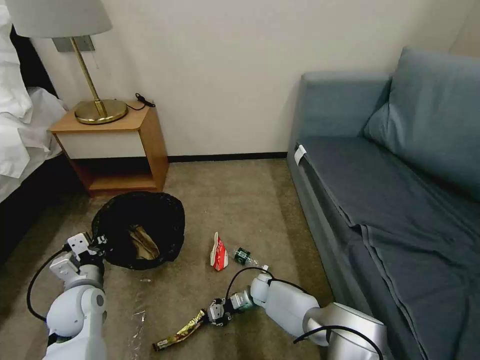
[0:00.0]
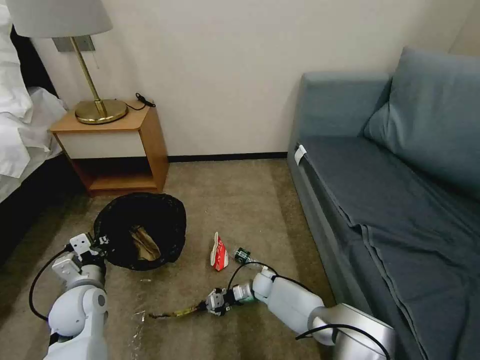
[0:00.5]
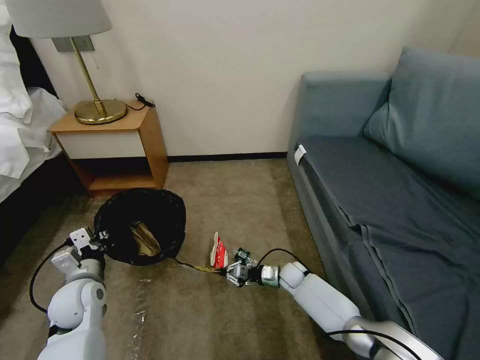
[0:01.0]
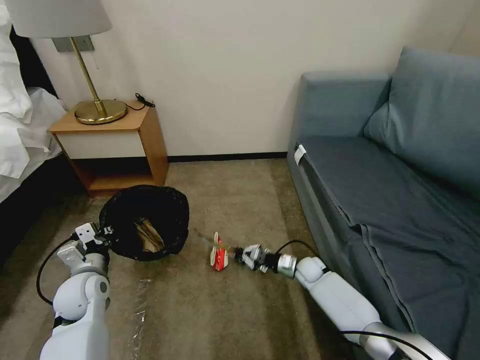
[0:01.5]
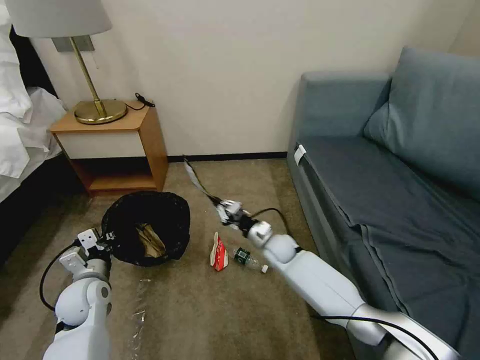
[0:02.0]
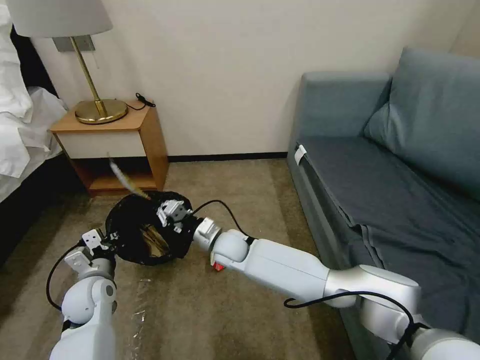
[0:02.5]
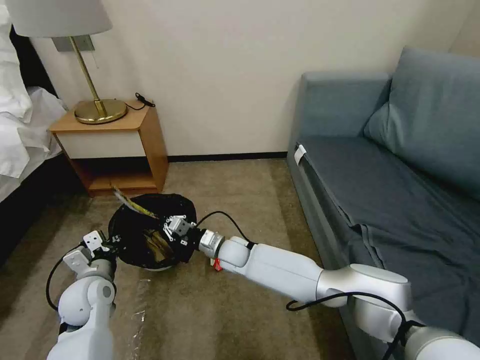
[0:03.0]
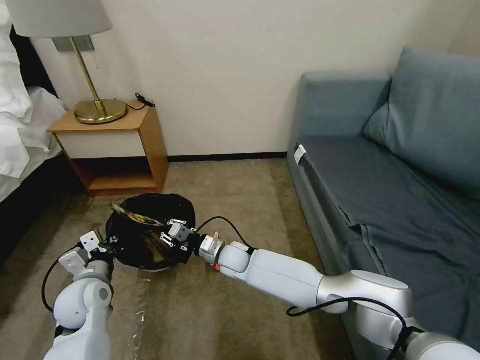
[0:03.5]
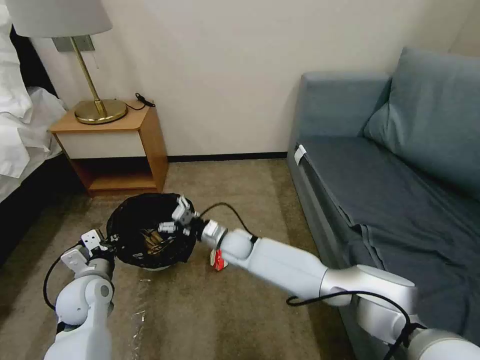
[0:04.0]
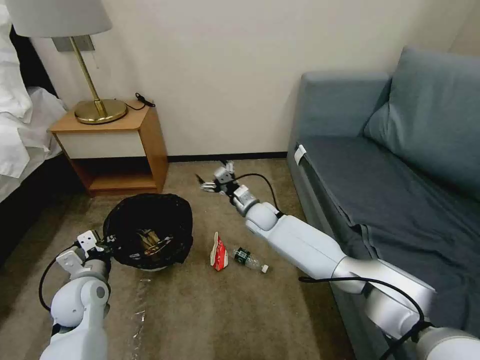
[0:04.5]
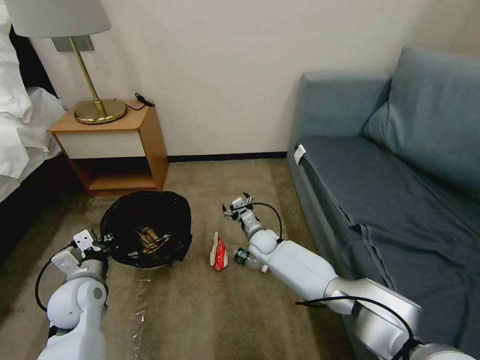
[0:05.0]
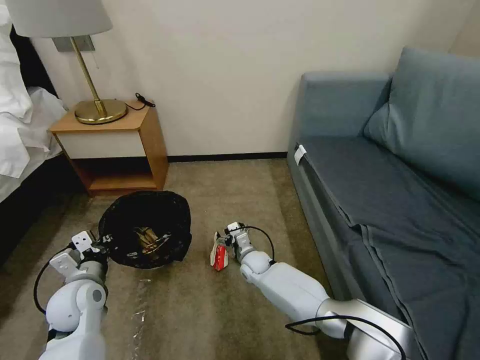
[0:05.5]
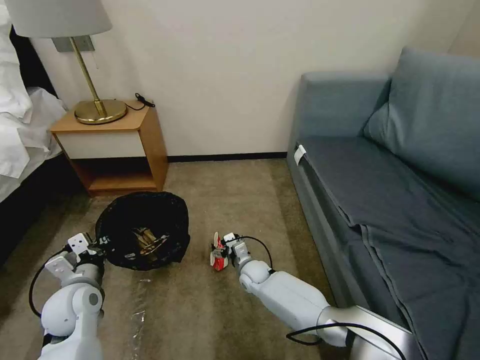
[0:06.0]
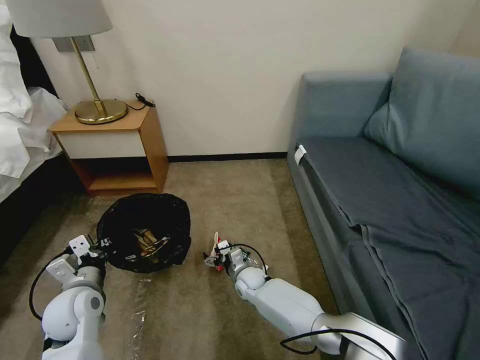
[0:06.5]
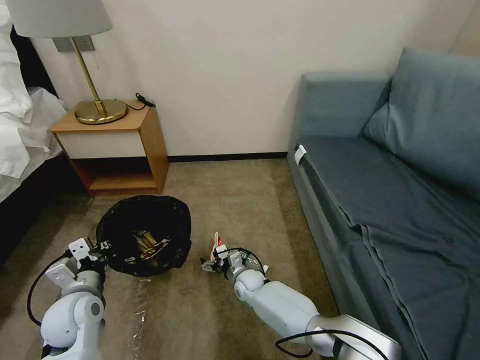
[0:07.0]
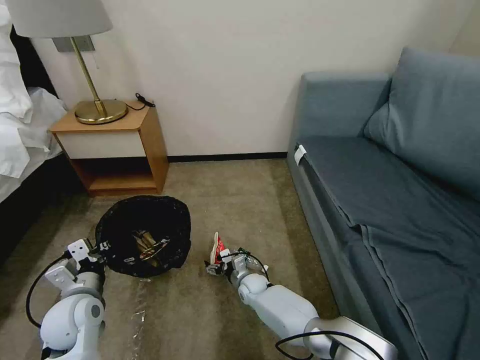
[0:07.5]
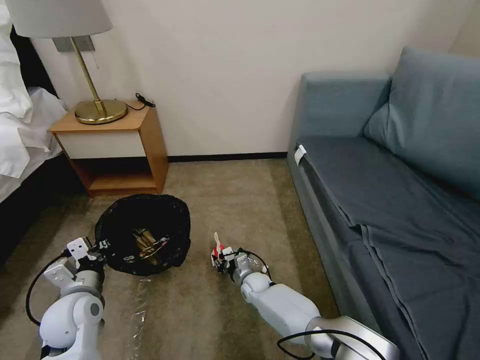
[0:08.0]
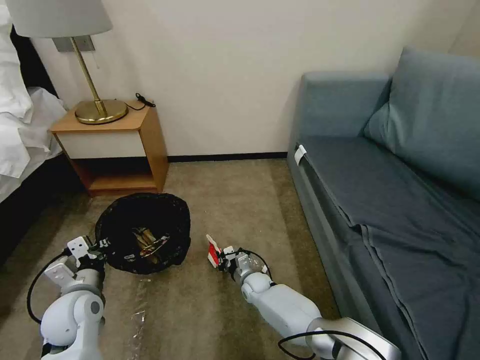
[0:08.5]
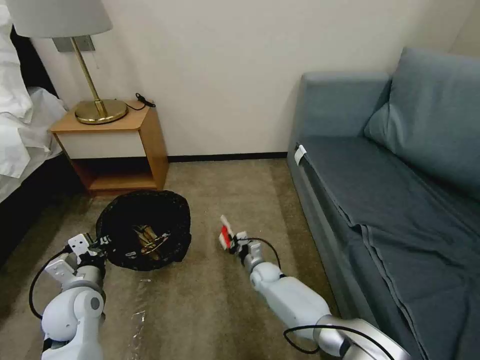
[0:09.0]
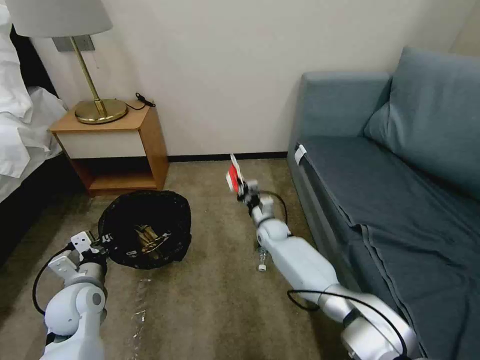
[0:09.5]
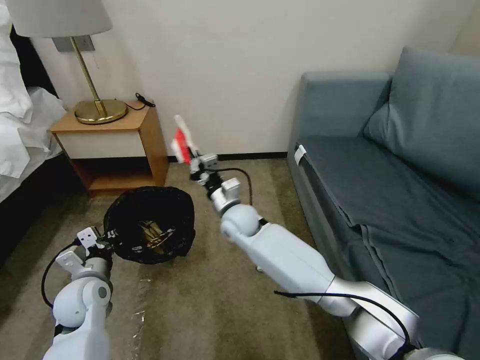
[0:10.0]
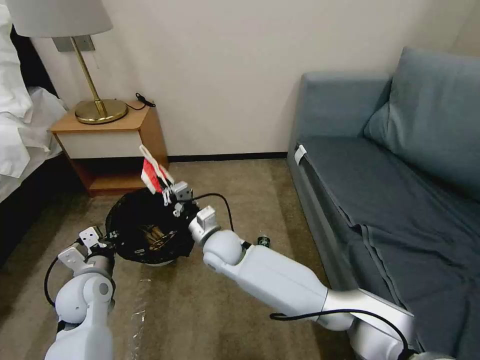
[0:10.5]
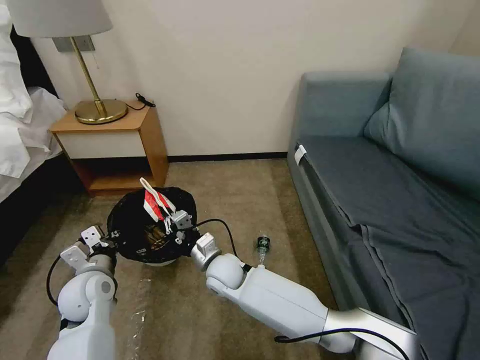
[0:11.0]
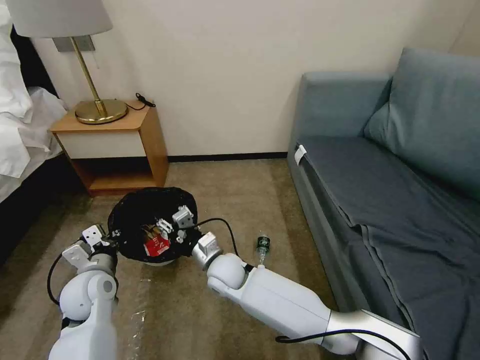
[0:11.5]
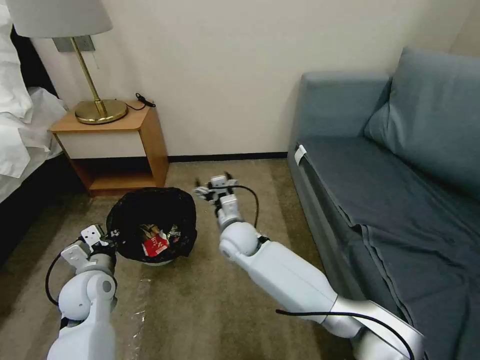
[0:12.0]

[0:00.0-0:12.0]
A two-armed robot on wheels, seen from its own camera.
Task of the whole recording: Pick up the trash bin, then pick up the garbage on the floor and place it into the trash bin.
0:00.0 to 0:02.0: The right gripper heads upward, covering about 15 cm.
0:02.0 to 0:04.0: The right gripper moves to the left, approximately 10 cm, and opens.
0:04.0 to 0:06.0: The right gripper moves downward and to the right, some 15 cm.
0:06.0 to 0:08.0: The right gripper changes place by roughly 5 cm, and closes.
0:08.0 to 0:10.0: The right gripper moves upward, about 25 cm.
0:10.0 to 0:12.0: The right gripper opens.

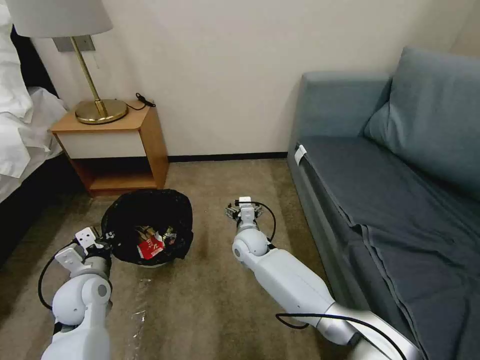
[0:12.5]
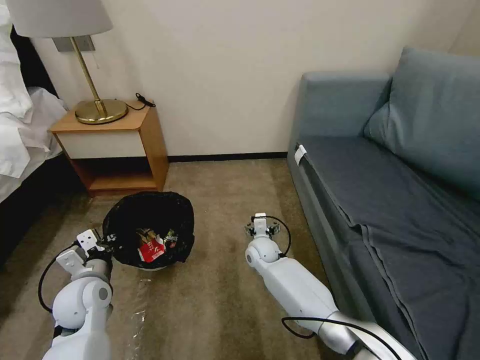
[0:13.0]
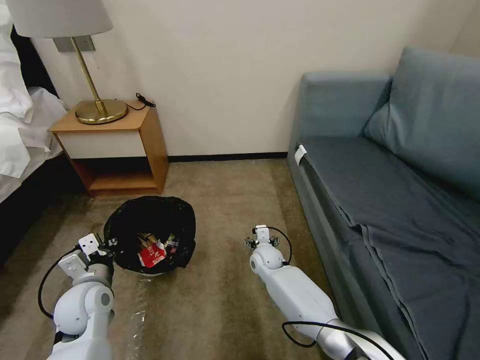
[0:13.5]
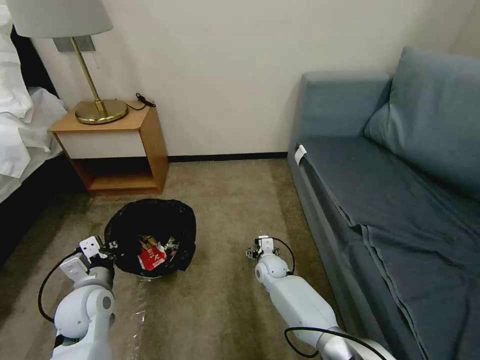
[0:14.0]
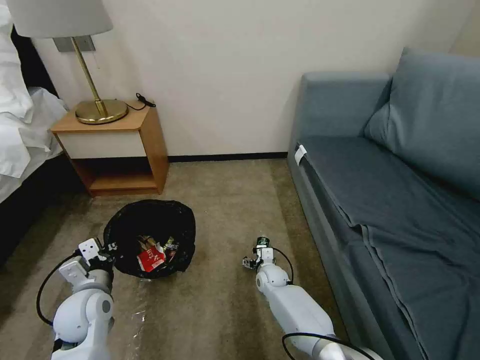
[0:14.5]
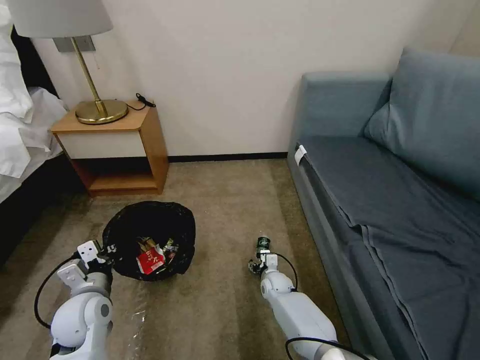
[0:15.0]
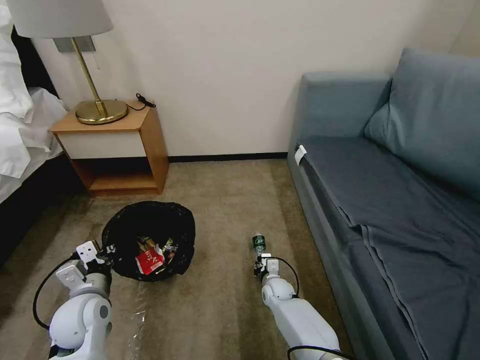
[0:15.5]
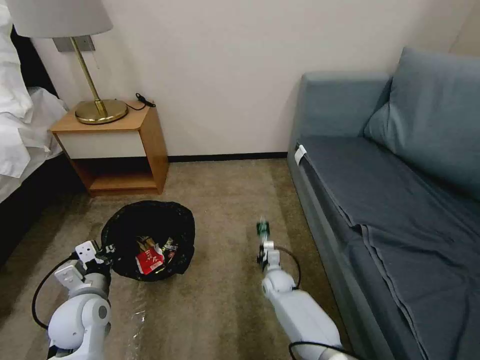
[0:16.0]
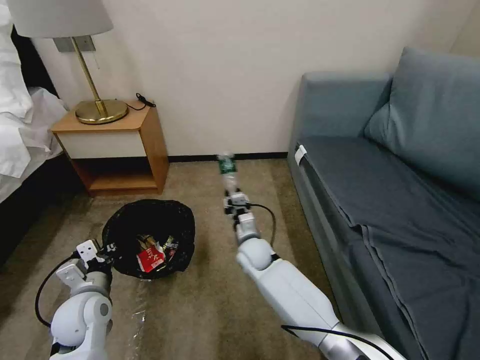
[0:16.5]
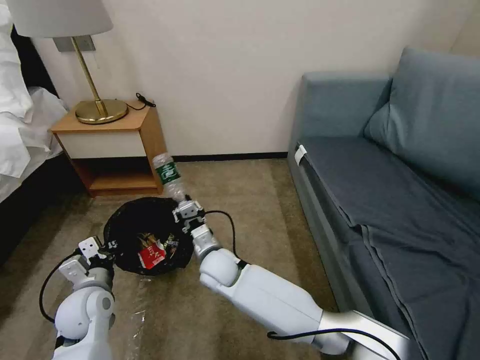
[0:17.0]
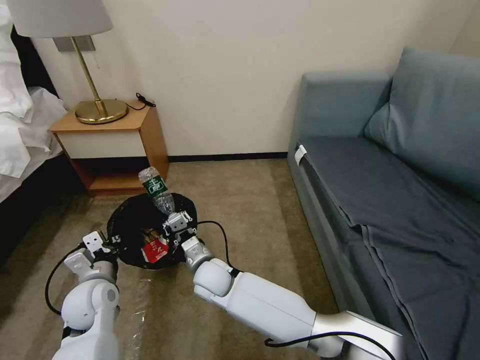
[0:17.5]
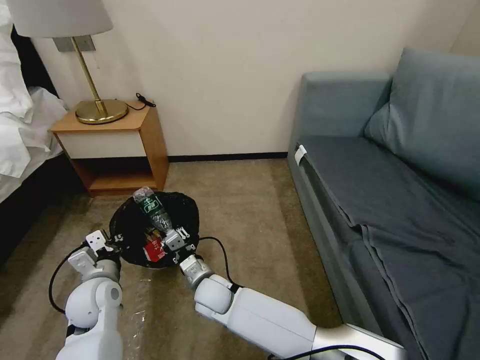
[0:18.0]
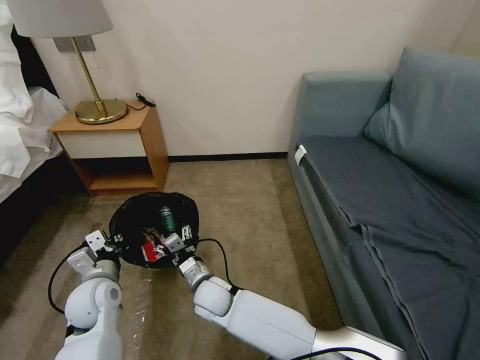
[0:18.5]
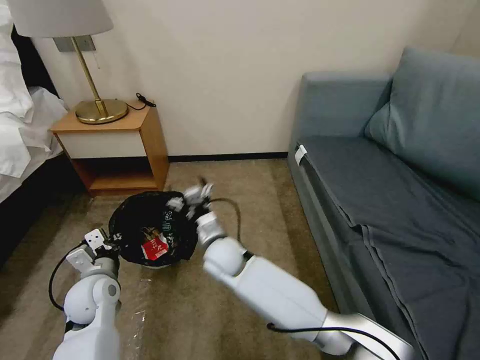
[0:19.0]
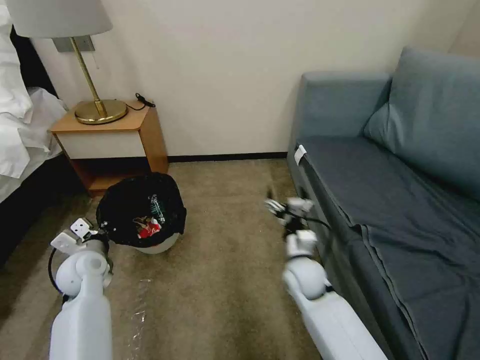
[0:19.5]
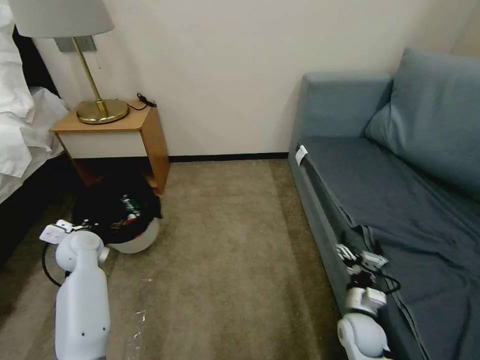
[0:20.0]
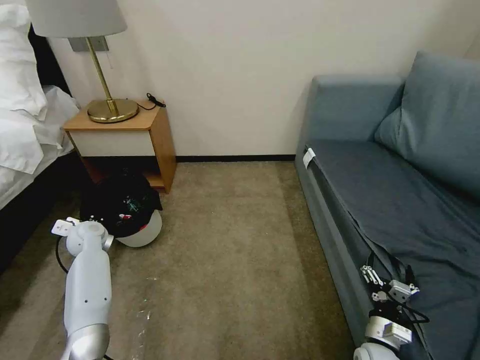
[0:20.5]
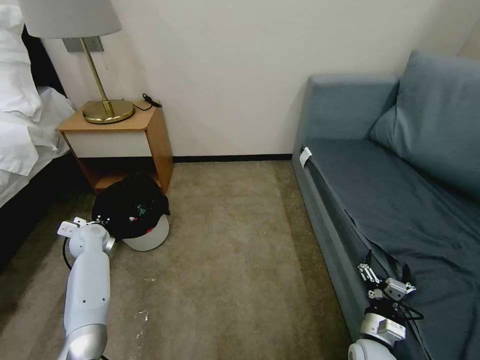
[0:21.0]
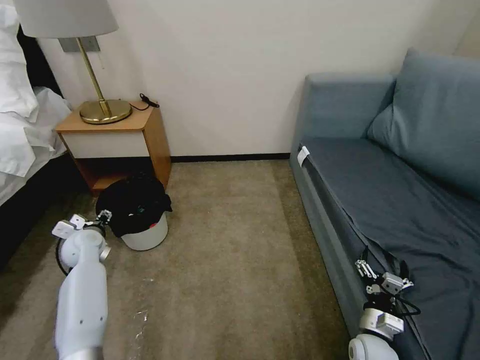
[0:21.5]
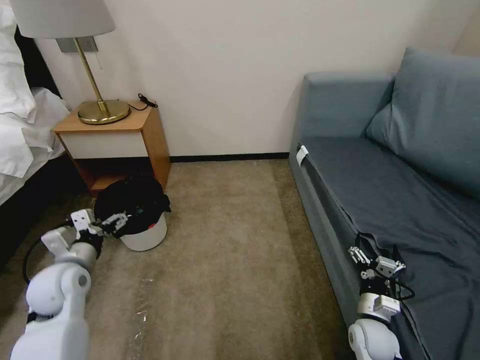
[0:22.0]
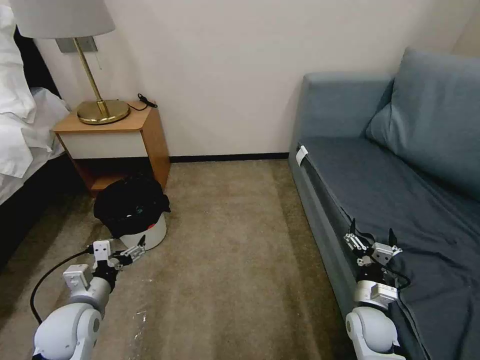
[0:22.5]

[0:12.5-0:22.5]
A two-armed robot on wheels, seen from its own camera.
Task of the whole recording: Pick up the trash bin, then pick up the garbage on the floor and place it into the trash bin.
0:12.5 to 0:14.5: The right gripper travels downward and to the right by approximately 15 cm.
0:14.5 to 0:16.5: The right gripper travels upward and to the left by some 15 cm, and closes.
0:16.5 to 0:18.5: The right gripper is displaced backward and to the left by some 15 cm, and opens.
0:18.5 to 0:20.5: The left gripper moves forward and to the left, some 20 cm. Meanwhile the right gripper moves to the right, roughly 40 cm.
0:20.5 to 0:22.5: The left gripper travels backward by about 20 cm, and opens. The right gripper shifts roughly 10 cm forward and upward.

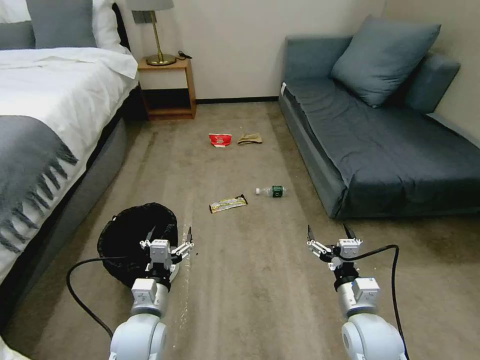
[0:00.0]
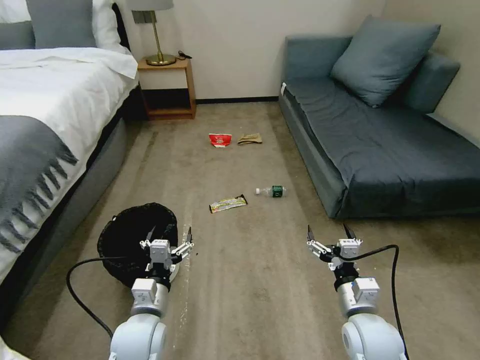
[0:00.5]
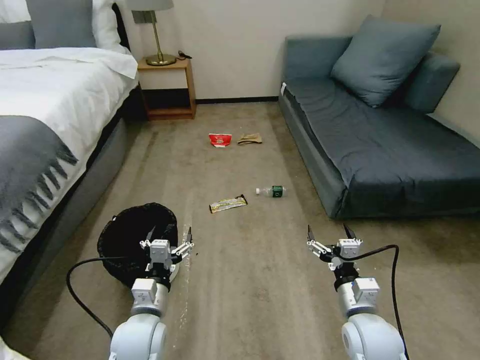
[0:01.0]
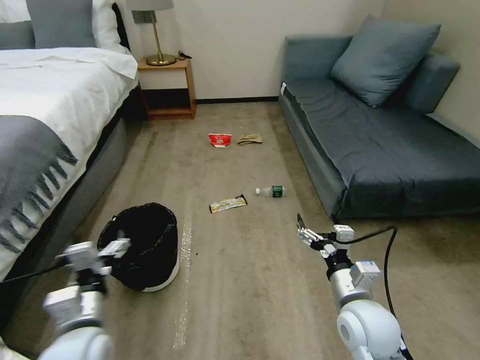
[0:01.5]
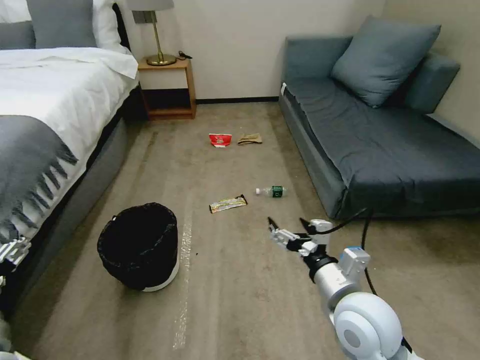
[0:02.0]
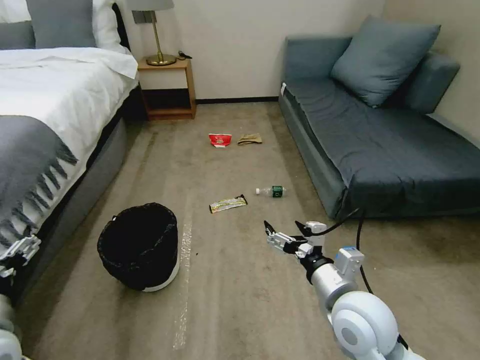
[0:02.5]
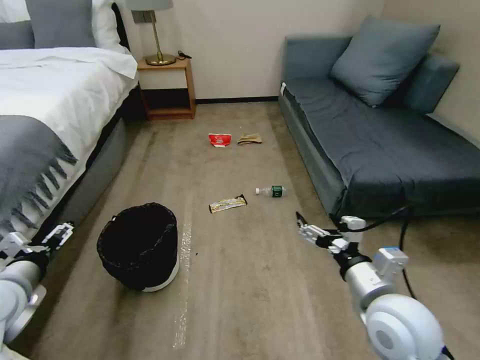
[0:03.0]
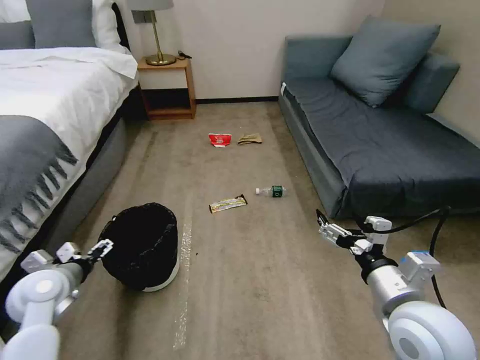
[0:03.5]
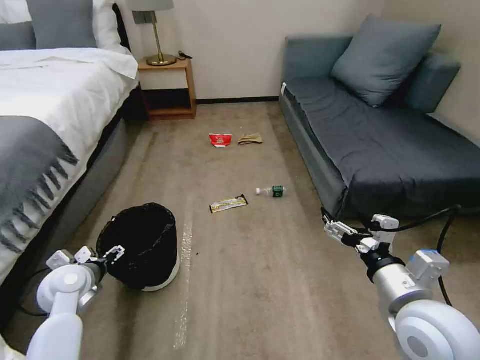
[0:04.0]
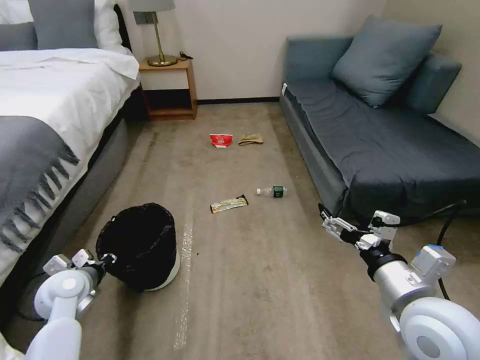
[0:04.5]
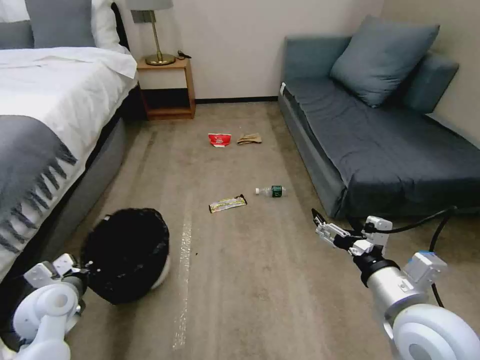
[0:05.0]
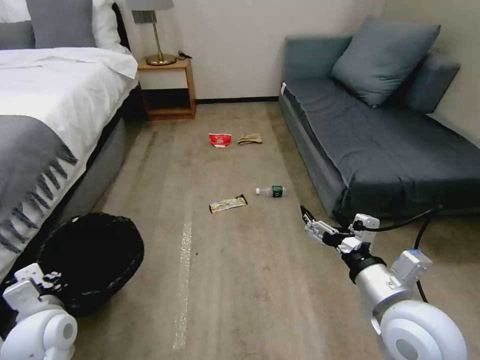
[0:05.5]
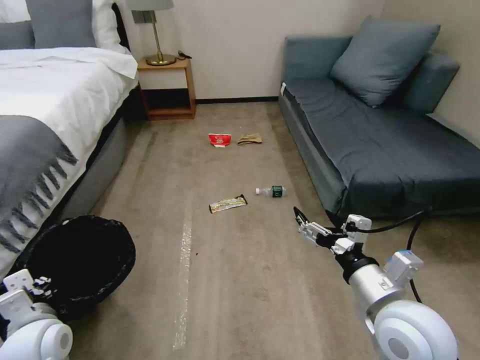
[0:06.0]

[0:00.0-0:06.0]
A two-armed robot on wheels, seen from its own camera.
Task of the whole recording: Pick up the trash bin, then pick up the garbage on the floor and place it into the trash bin.
0:02.0 to 0:04.0: The right gripper travels to the right by approximately 10 cm. The left gripper travels forward and downward by approximately 20 cm.
0:04.0 to 0:06.0: The left gripper goes roughly 10 cm backward, and closes up.
